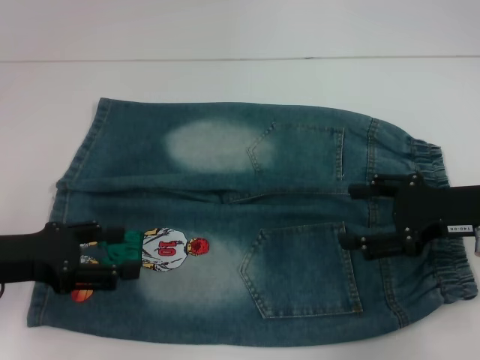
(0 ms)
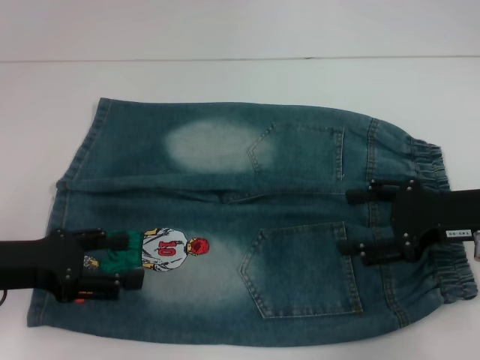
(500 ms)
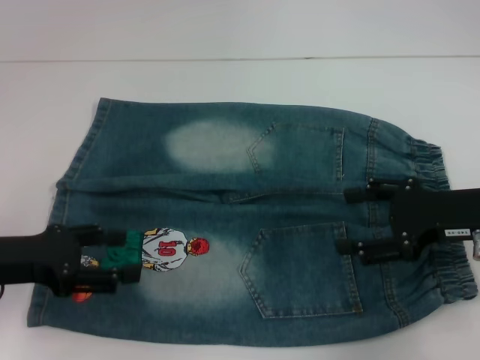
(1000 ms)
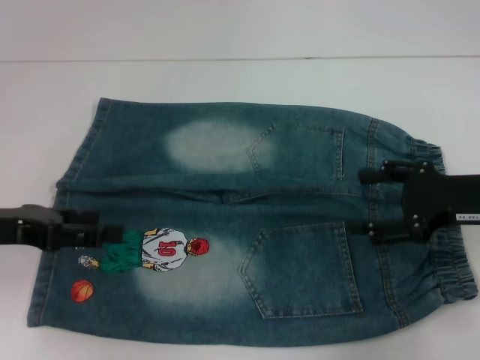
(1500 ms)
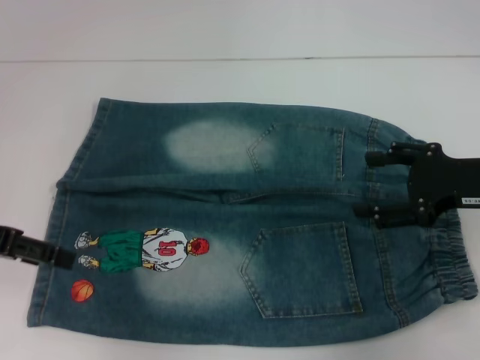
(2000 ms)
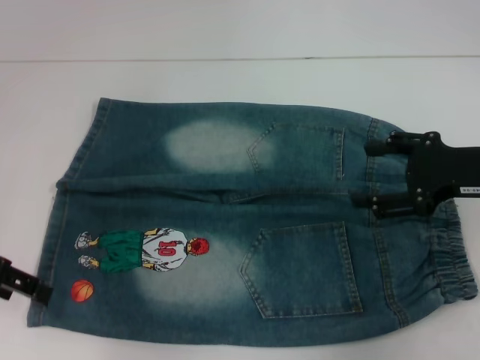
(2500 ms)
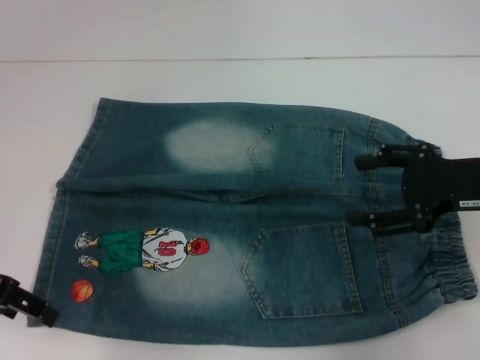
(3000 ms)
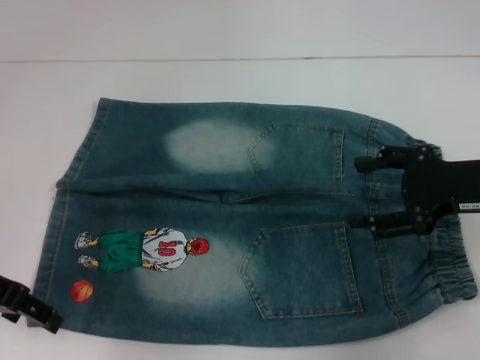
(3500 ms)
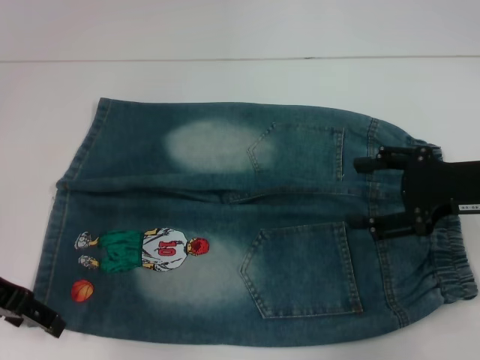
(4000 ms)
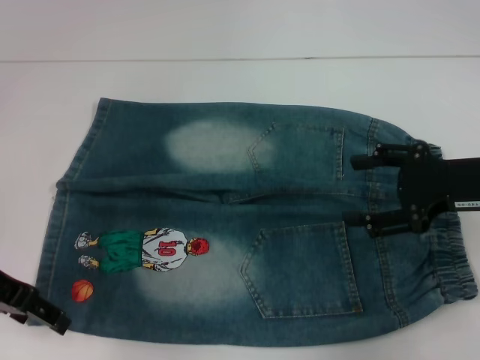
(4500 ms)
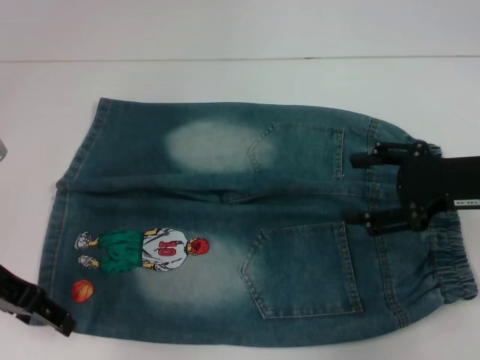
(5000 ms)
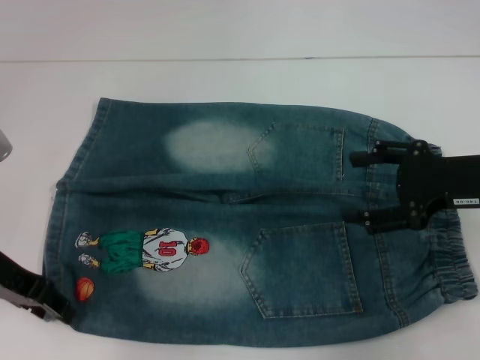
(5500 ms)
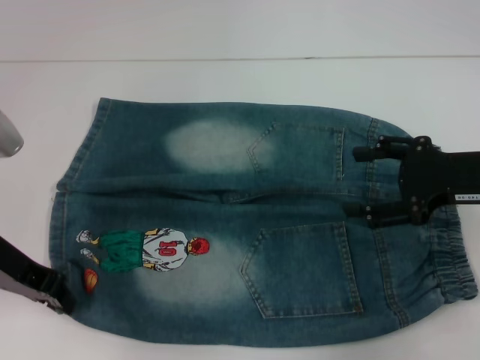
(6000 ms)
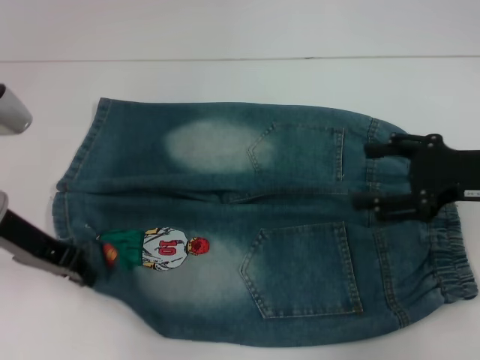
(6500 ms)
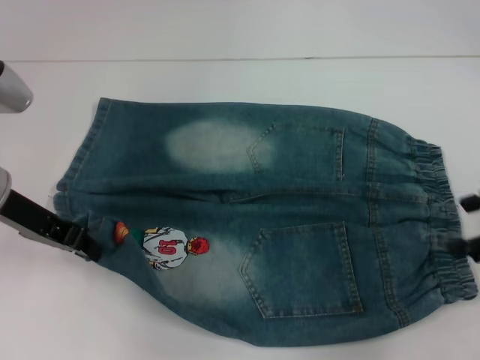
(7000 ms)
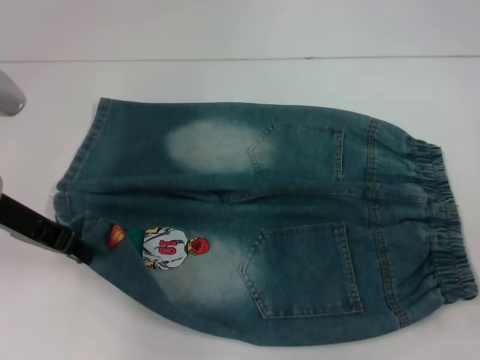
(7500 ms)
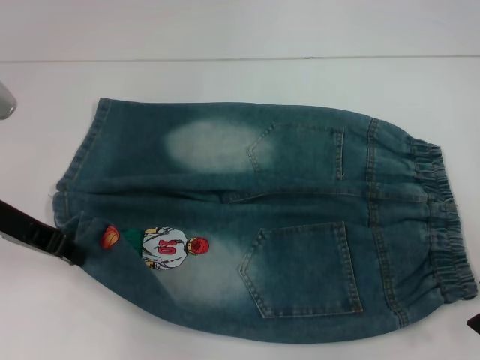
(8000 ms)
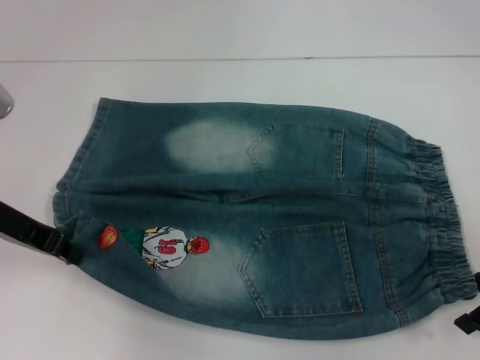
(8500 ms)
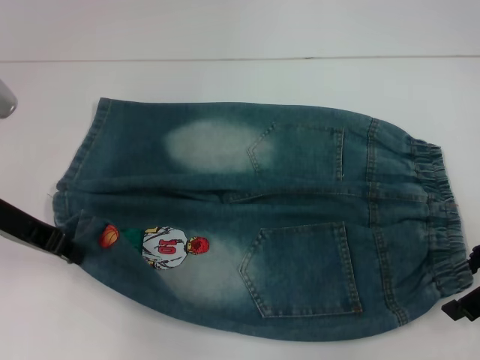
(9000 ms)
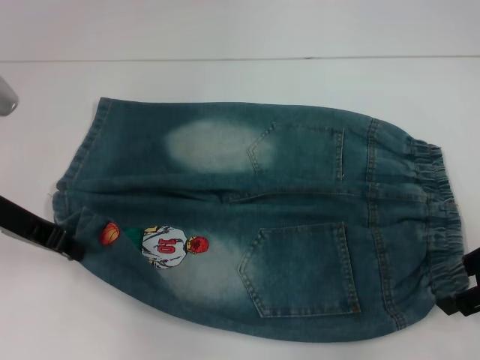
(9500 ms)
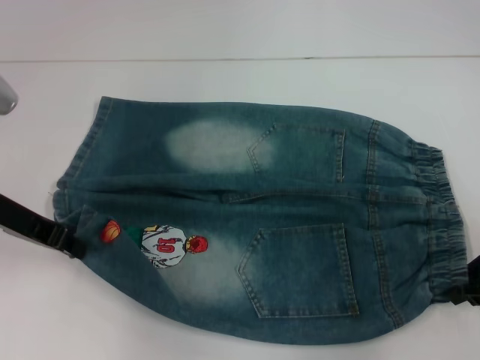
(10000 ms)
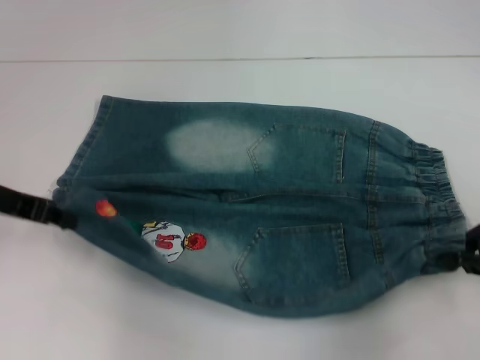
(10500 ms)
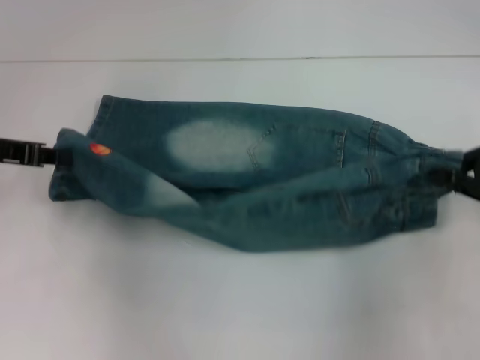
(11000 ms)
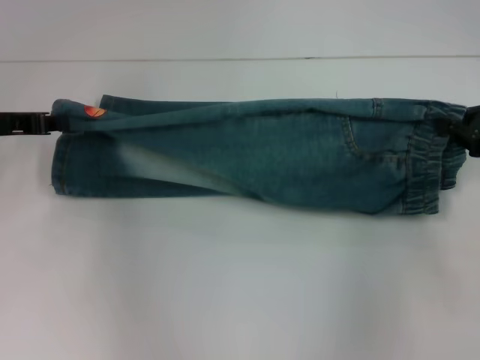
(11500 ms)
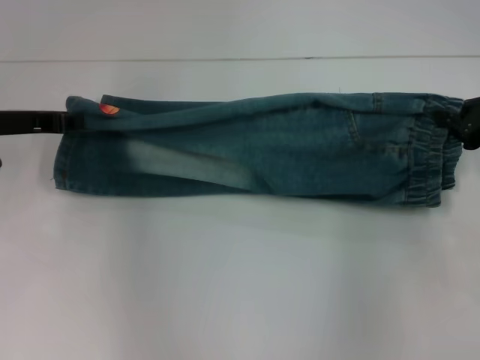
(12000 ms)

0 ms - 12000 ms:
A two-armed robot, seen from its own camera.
Step, 0 ms - 5500 ms: Grab the lower left pant leg with your left hand.
Step, 6000 ms - 9500 ms: Hold the lower right waistband with your right hand.
0 ms - 2000 ms: The left gripper heads upward, covering some 5 cm.
4000 ms - 6000 ms: The left gripper closes.
8000 ms - 10000 ms: The right gripper closes its fingers.
10000 ms - 12000 ms: The left gripper shifts by roughly 5 cm, while the right gripper shifts some 5 cm forward.

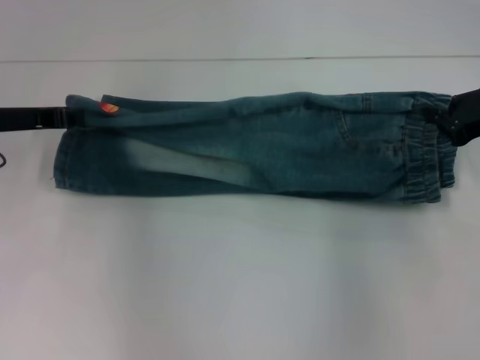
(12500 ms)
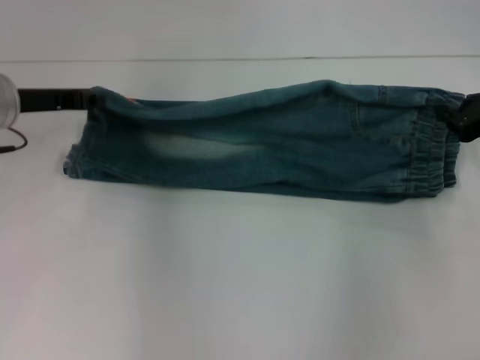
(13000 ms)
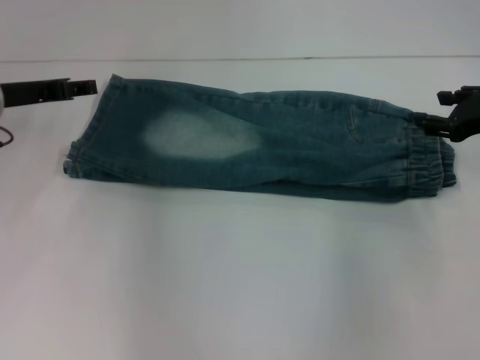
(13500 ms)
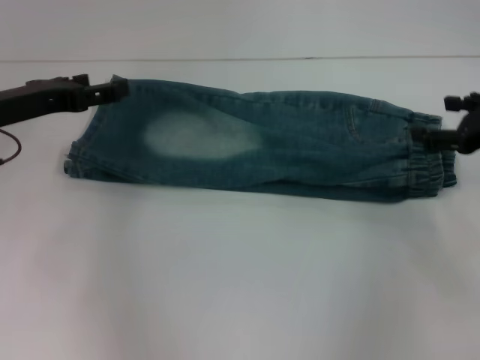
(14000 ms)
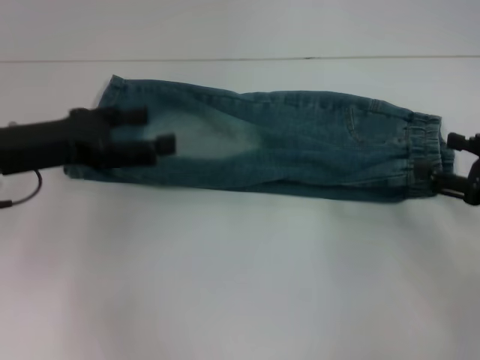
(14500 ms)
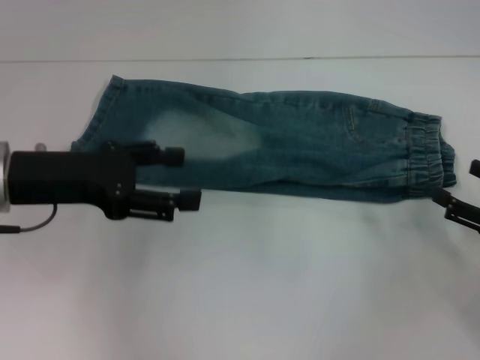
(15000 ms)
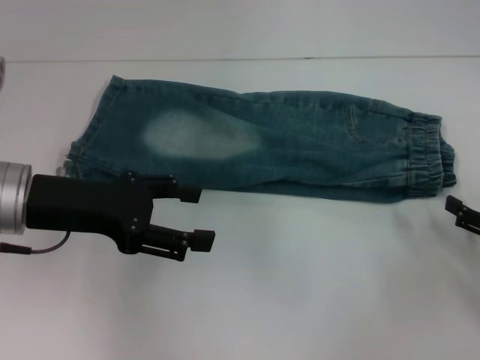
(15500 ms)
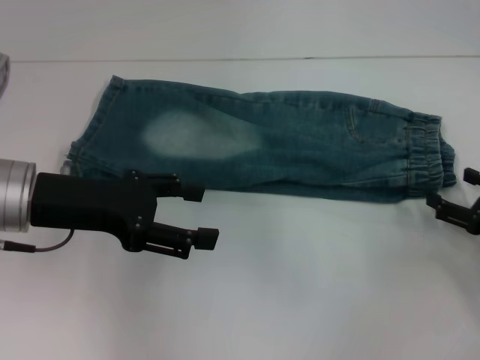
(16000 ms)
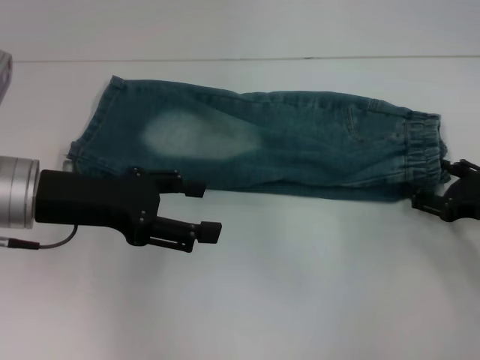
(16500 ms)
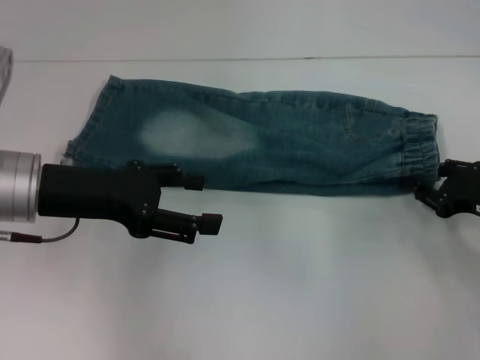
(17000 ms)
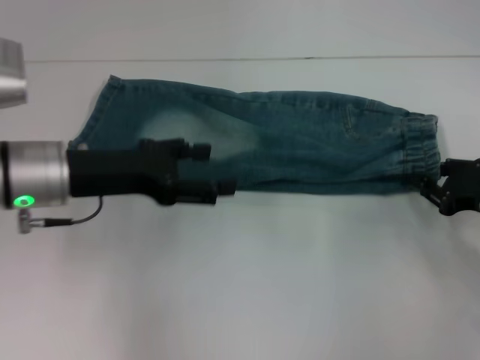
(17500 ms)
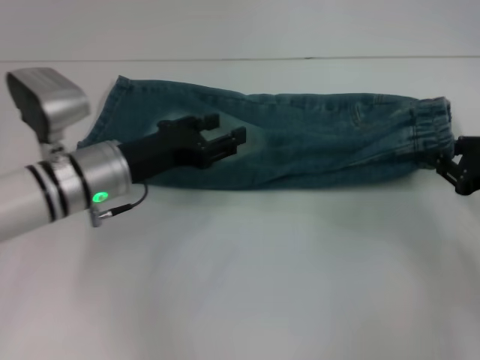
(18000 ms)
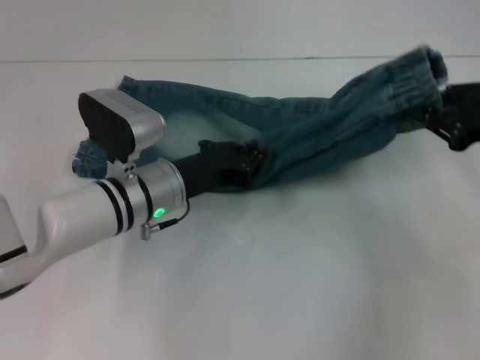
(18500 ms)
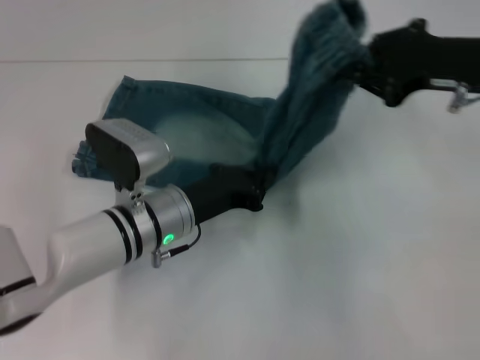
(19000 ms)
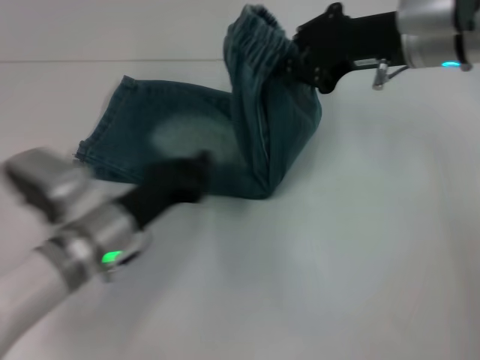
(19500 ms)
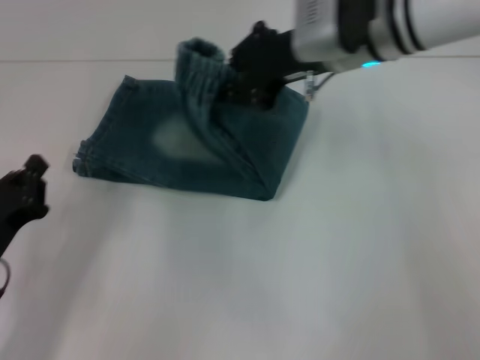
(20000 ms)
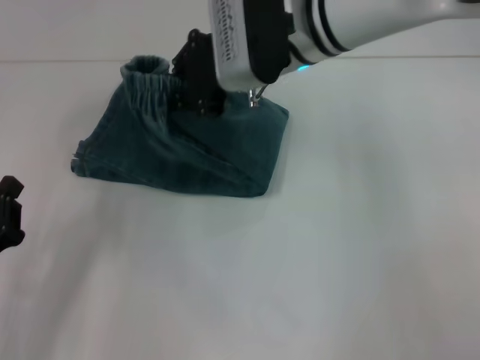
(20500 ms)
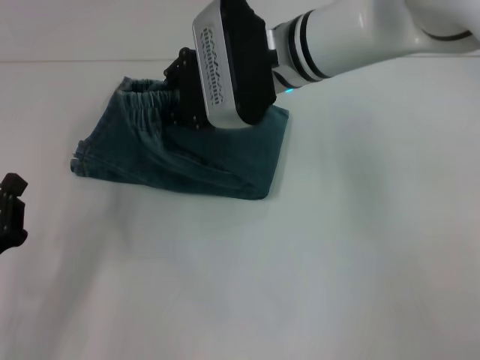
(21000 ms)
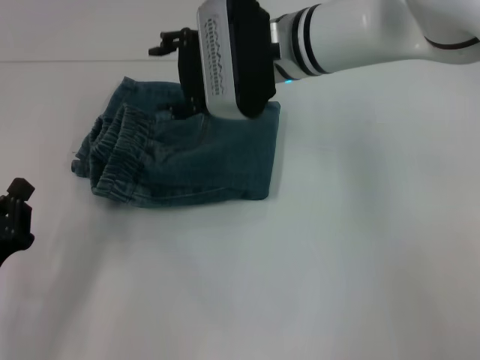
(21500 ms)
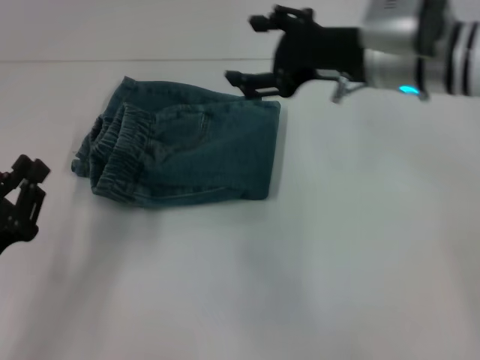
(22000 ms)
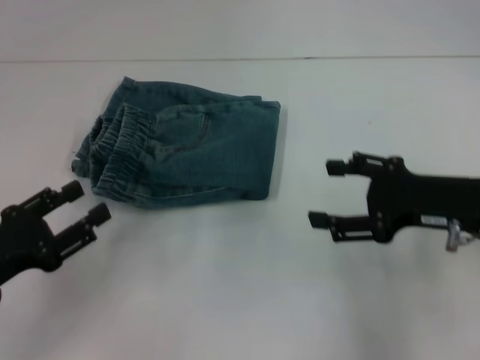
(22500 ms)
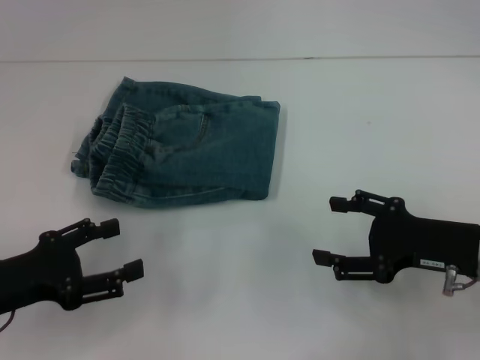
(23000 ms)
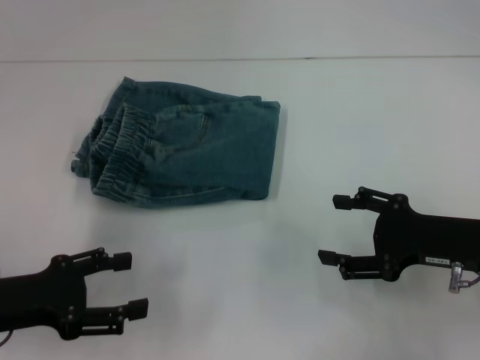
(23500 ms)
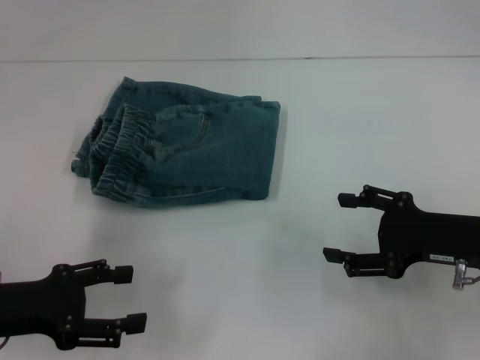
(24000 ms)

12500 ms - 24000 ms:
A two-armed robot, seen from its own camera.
Step, 14000 ms - 16500 ms: Grab the waistband with your right hand.
Step, 17000 ms - 19000 ms: Press the middle of the pants with your left hand.
Step, 19500 ms - 21000 ms: Fold to the left with your right hand.
12500 ms - 14500 ms: The left gripper shifts roughly 5 cm backward, and opens up; the right gripper goes approximately 10 cm backward and downward, and opens.
14500 ms - 16500 ms: The right gripper ends up about 5 cm from where it was.
16500 ms - 18500 ms: The right gripper travels upward by roughly 10 cm, and closes; the left gripper heads to the right and downward, covering some 15 cm, and closes up.
18500 ms - 20000 ms: The right gripper shifts approximately 25 cm to the left and forward. The left gripper moves to the left and backward, approximately 20 cm, and closes its fingers.
20000 ms - 22000 ms: The right gripper reaches approximately 5 cm to the left, then returns, and opens up.
22000 ms - 24000 ms: The left gripper opens its fingers, while the right gripper travels backward, to the right and downward by roughly 20 cm.
